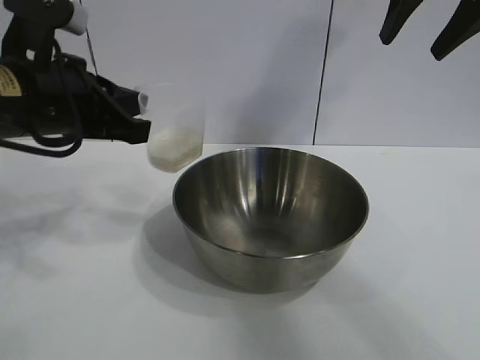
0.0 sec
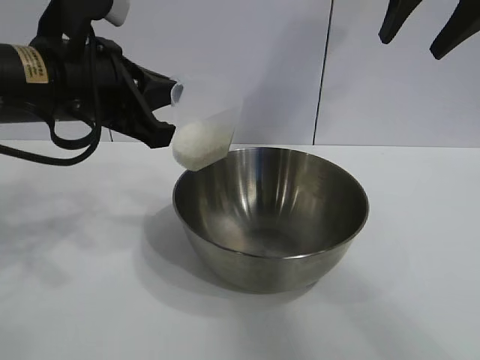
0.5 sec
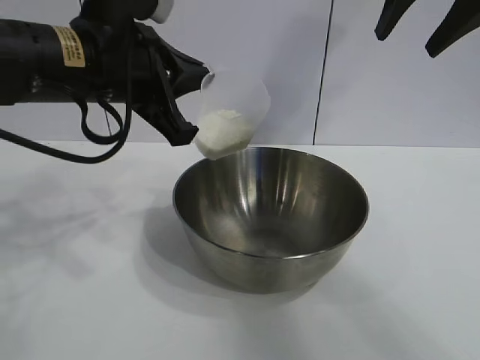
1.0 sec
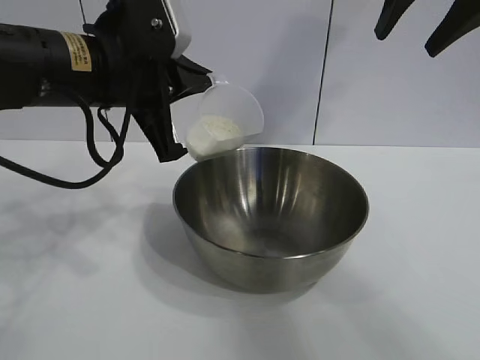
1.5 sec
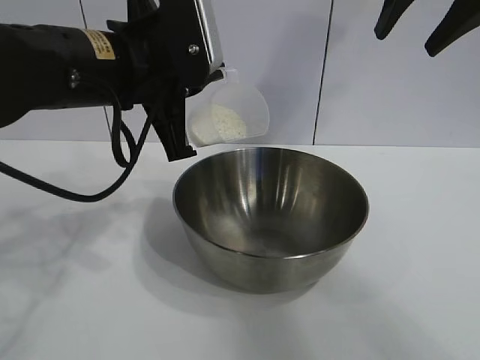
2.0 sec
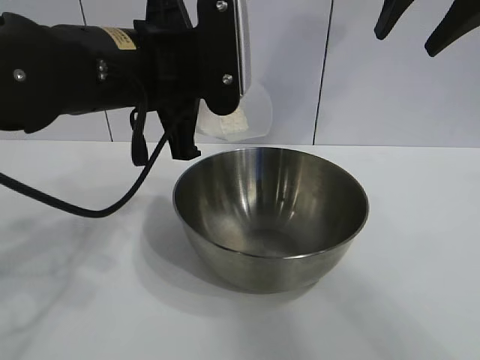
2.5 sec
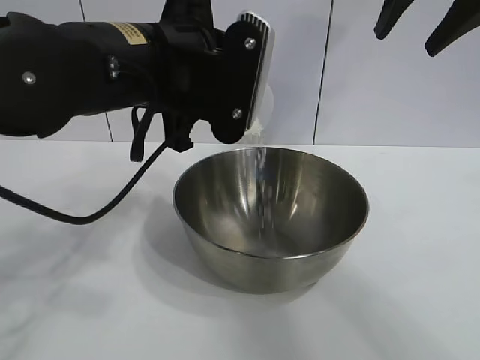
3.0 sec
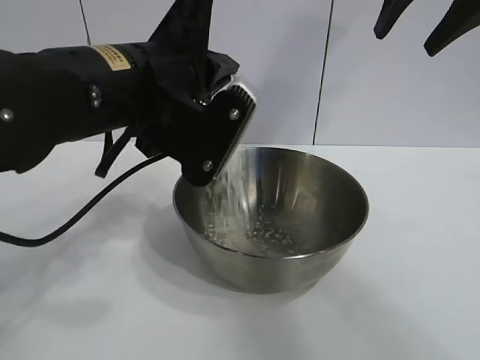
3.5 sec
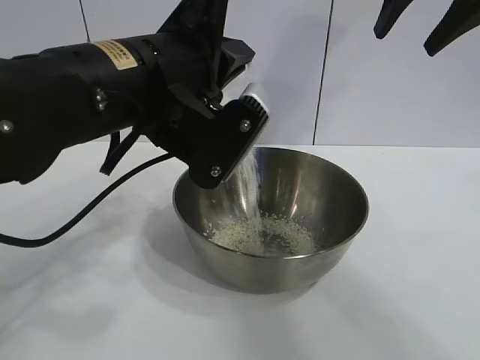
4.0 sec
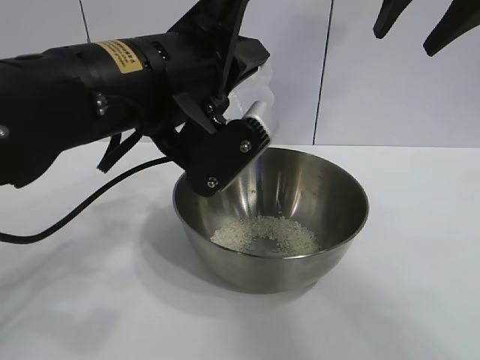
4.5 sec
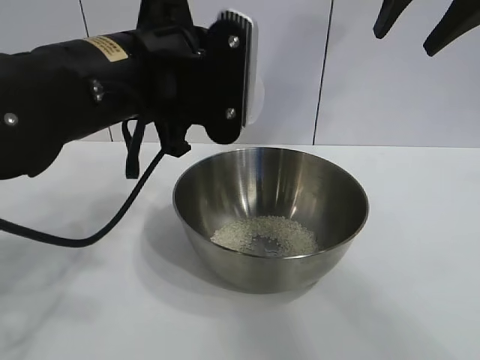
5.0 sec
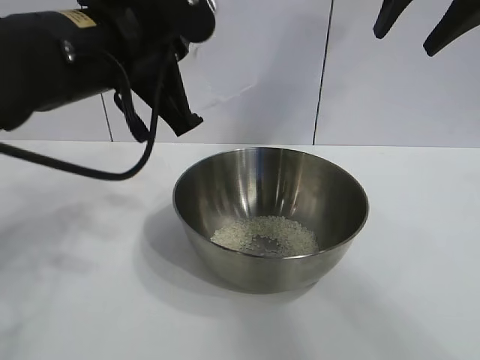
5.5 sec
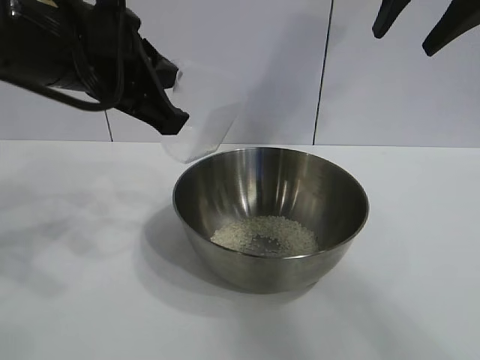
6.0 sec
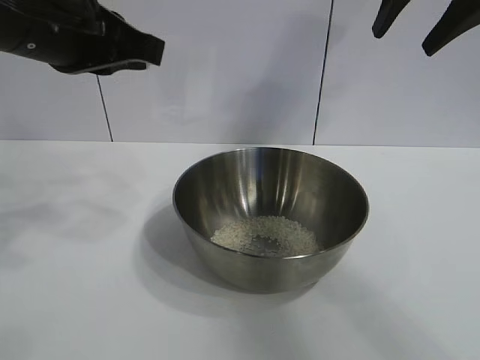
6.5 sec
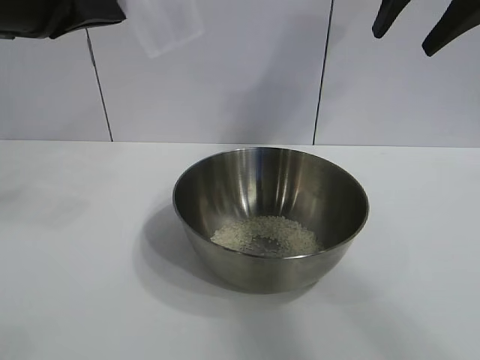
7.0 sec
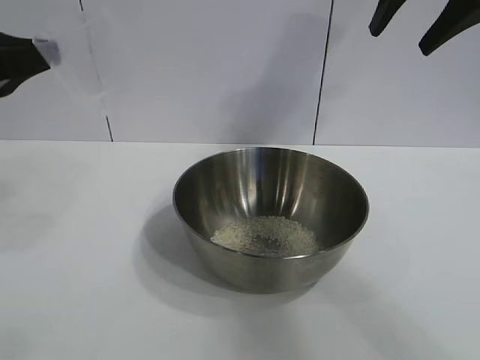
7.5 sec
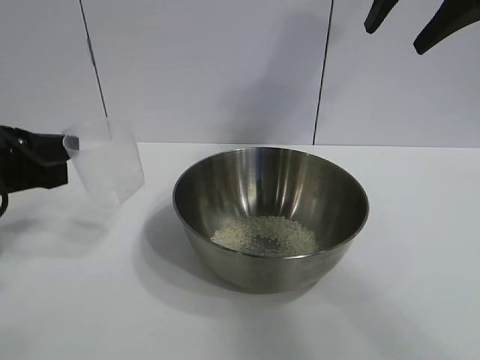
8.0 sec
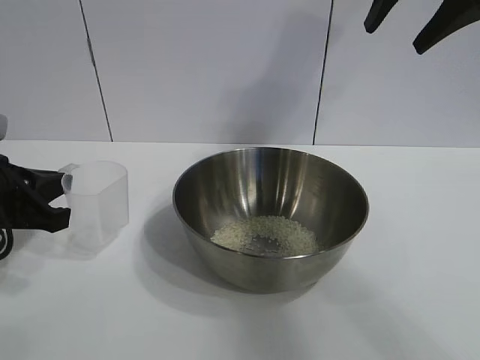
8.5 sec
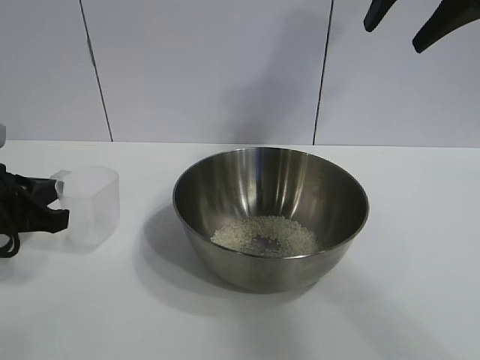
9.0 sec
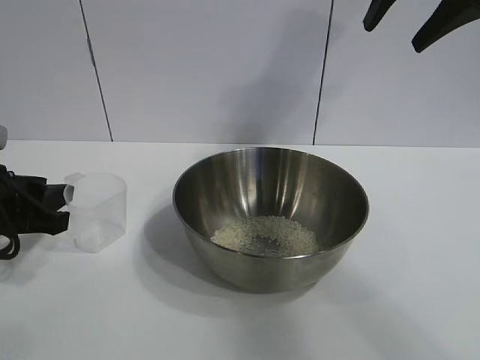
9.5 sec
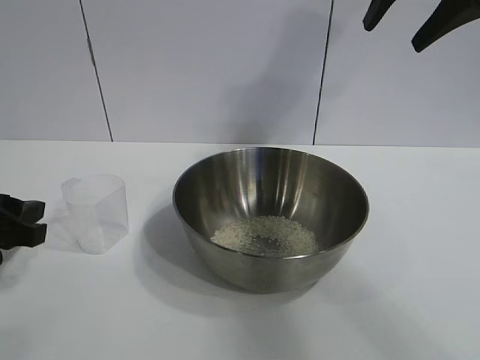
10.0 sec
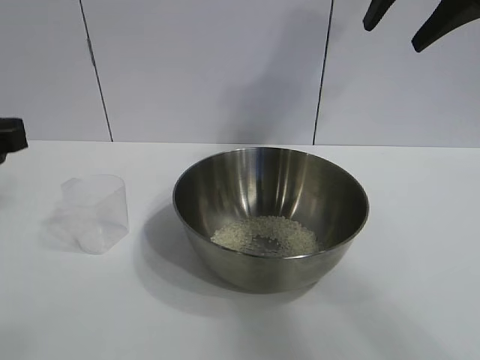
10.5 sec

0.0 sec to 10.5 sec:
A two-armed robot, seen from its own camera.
Task of the whole recording: the right gripper grasp the rice container and place it in the center of the table, the left gripper grasp the rice scoop and pour the rice into the rice container.
Step, 0.0 sec to 4.5 sec: Pour the rice from the cup into the bowl with the left gripper.
Step, 5.0 sec to 9.5 sec: Place the cup on the table with the left gripper.

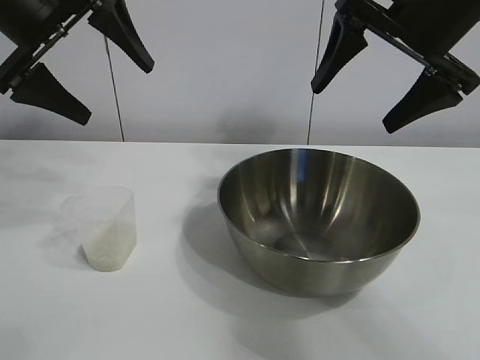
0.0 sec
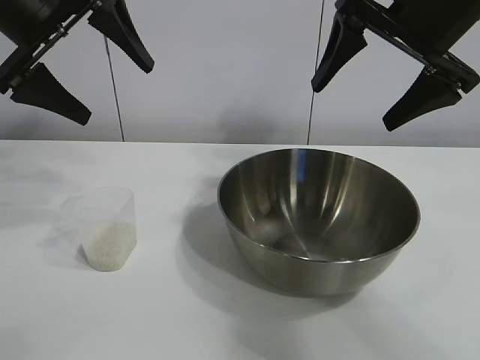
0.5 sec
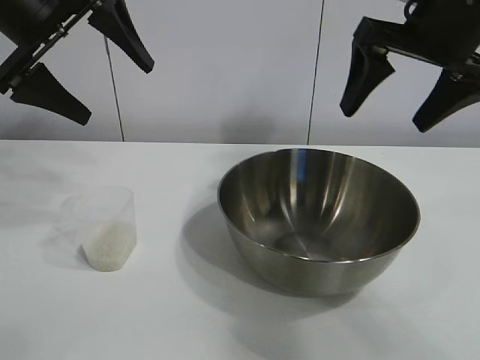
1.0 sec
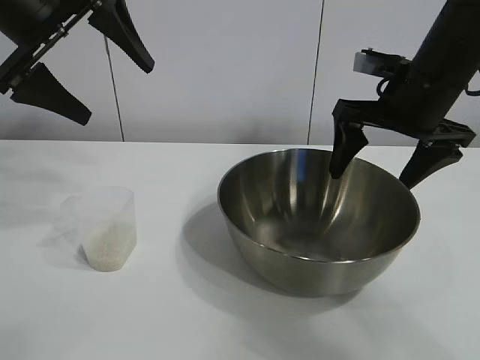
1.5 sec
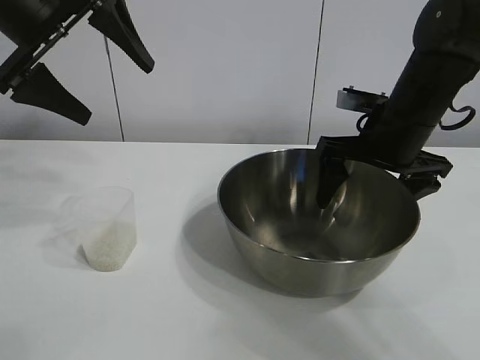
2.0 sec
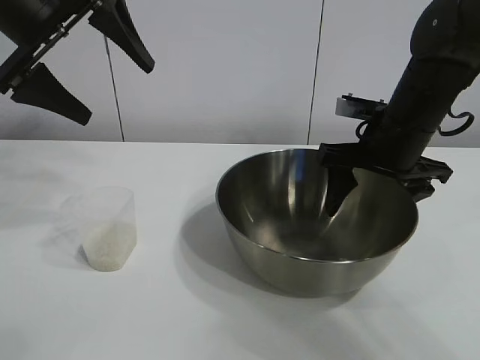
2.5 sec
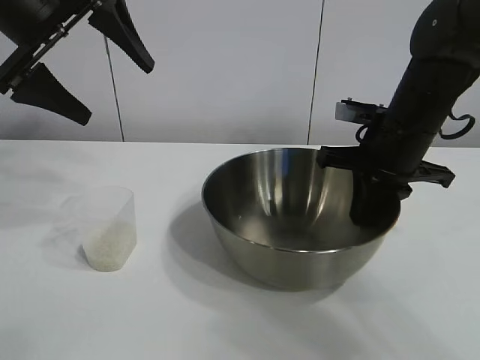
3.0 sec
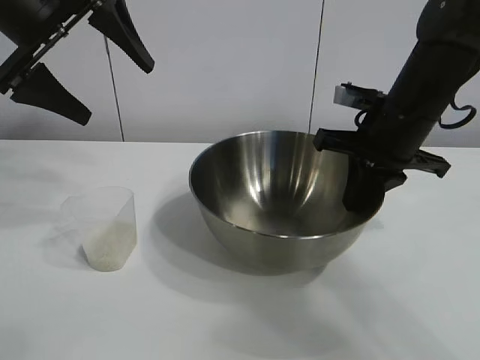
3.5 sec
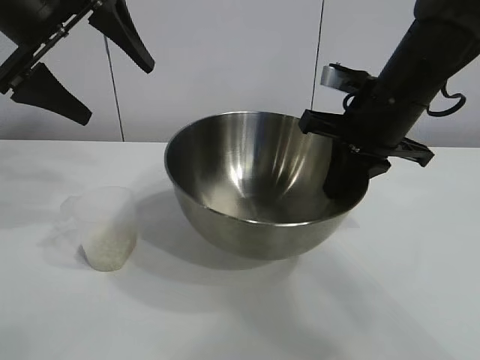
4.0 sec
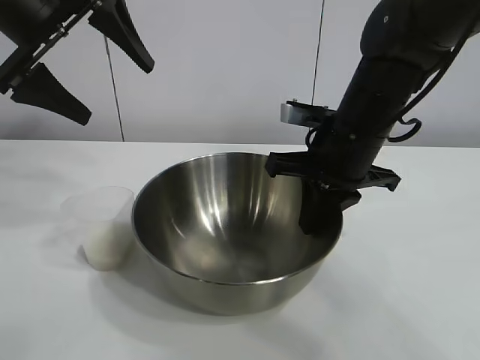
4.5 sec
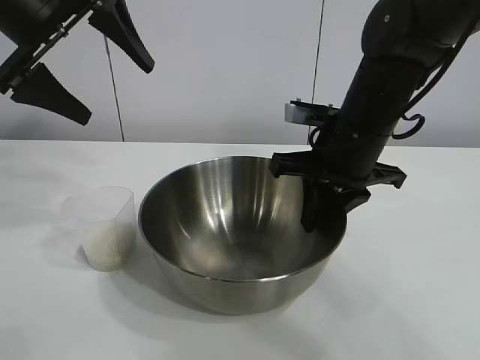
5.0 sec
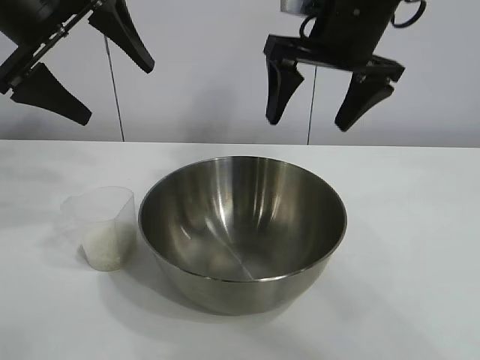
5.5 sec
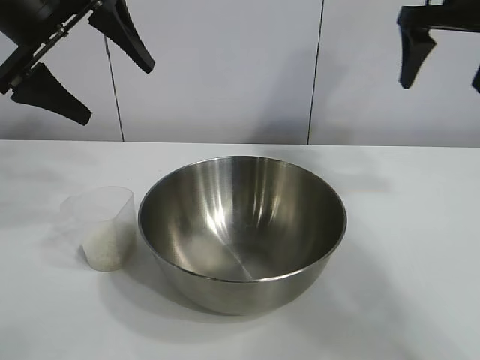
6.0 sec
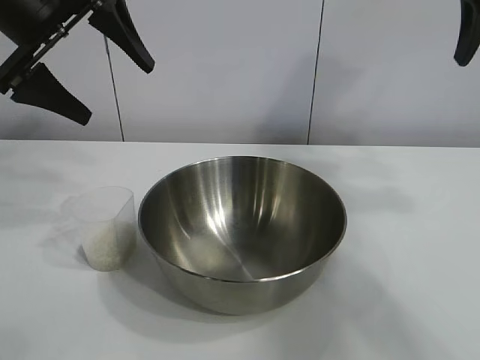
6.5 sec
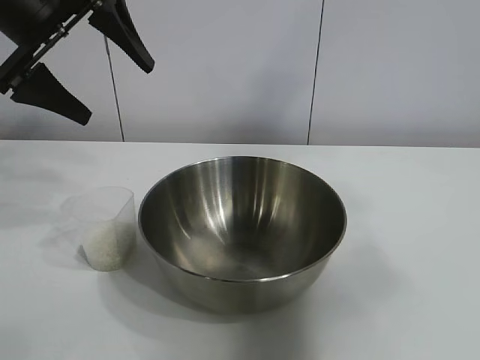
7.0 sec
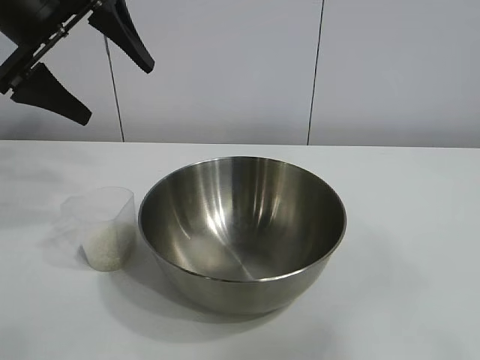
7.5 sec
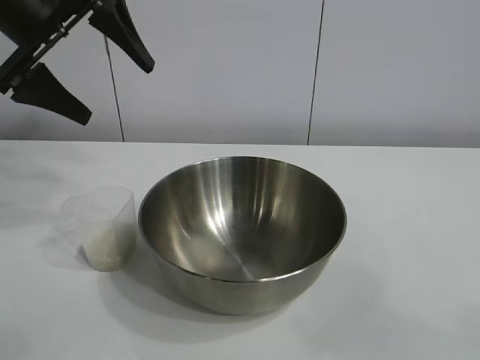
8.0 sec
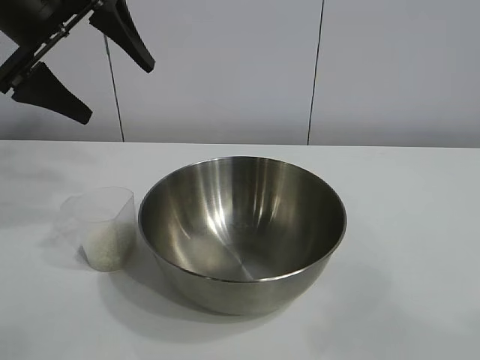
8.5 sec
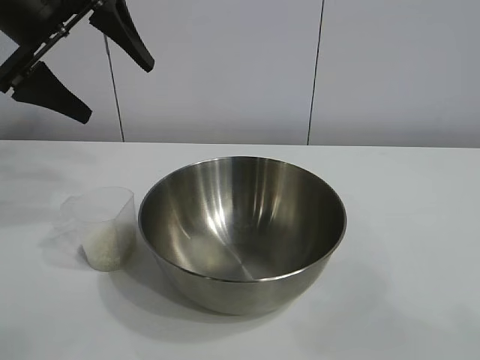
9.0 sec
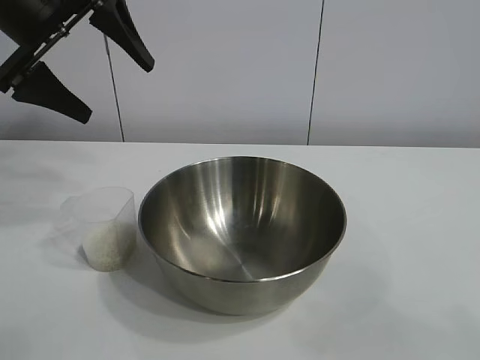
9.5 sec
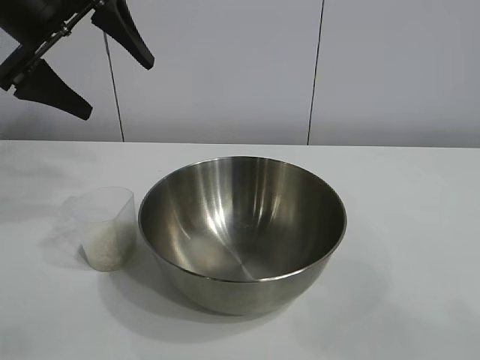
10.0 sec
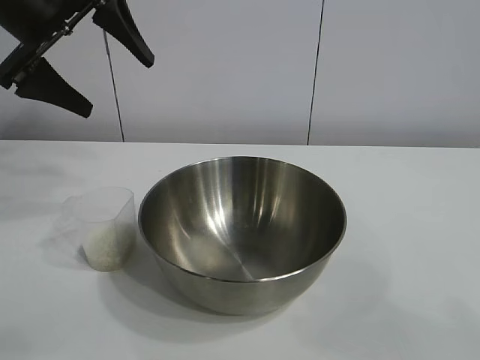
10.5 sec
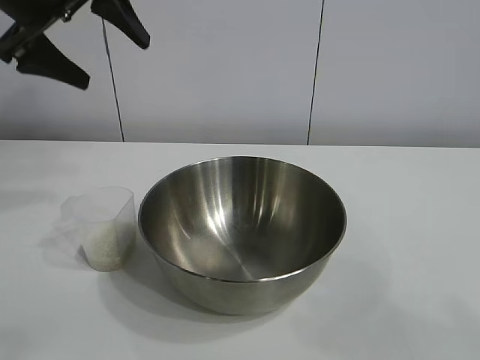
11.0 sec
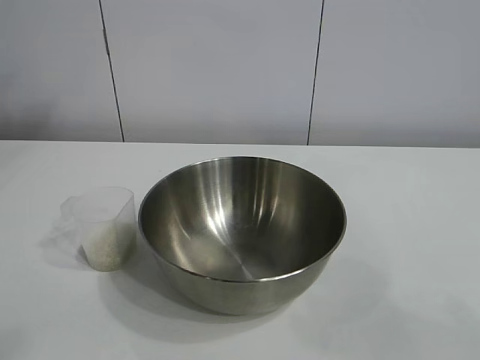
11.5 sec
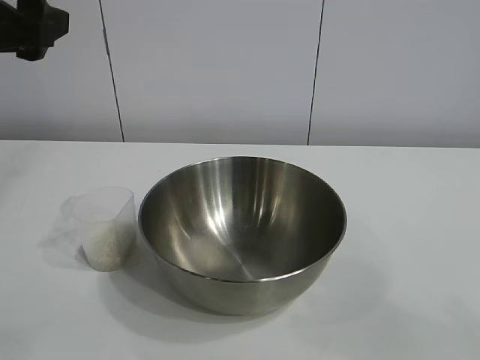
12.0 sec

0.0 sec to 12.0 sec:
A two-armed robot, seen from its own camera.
Task of the whole recording: the right gripper grasp the rice container and place it in the center of the table, the left gripper grasp the rice scoop and pour the rice into the rice container.
Step, 1.0 sec to 5.0 sec: Move the bowl in the center of view with right gripper.

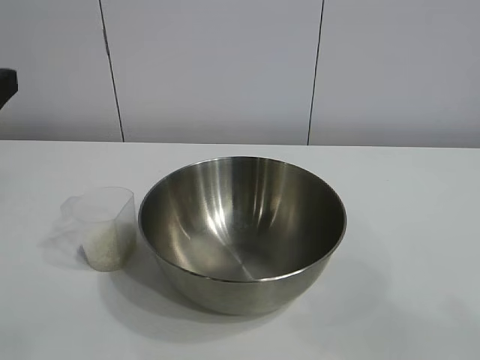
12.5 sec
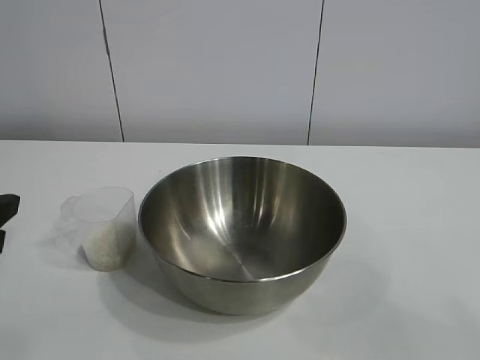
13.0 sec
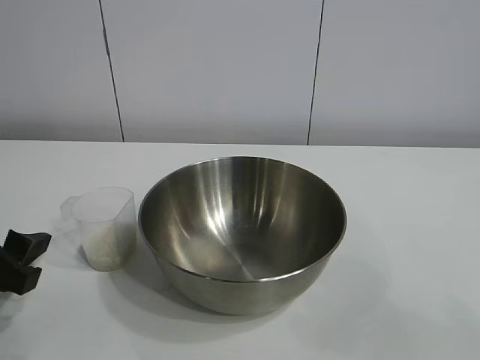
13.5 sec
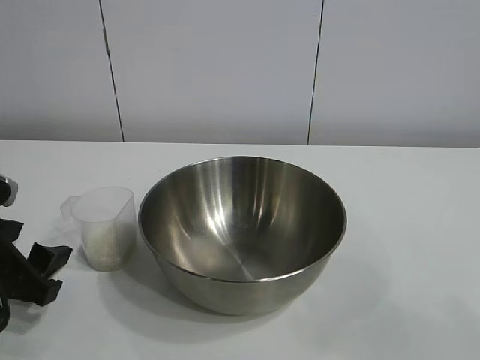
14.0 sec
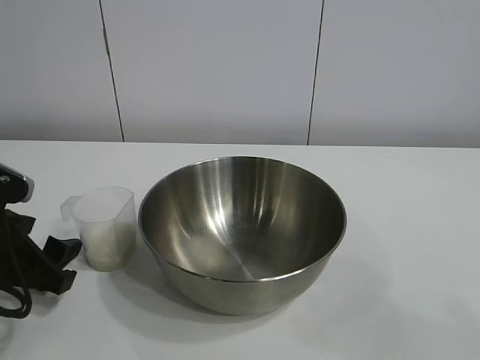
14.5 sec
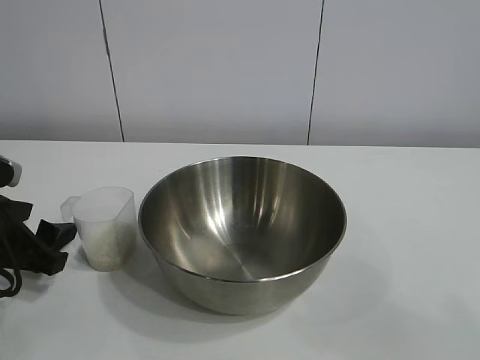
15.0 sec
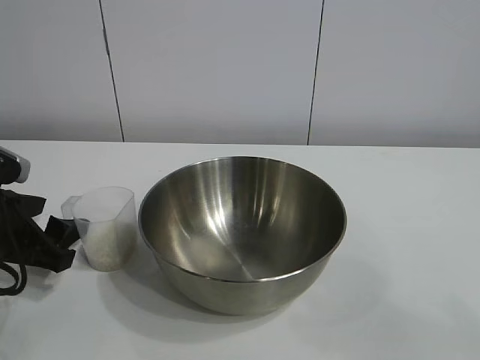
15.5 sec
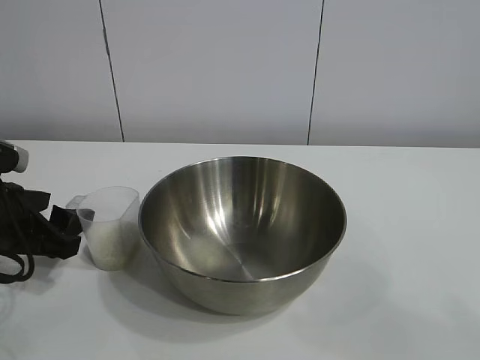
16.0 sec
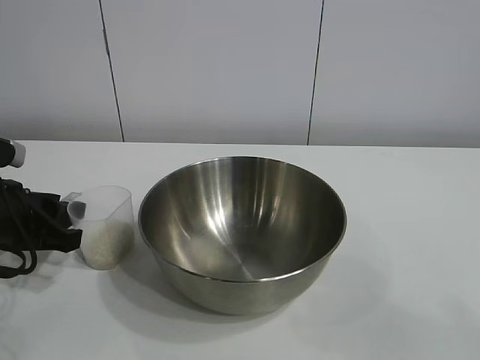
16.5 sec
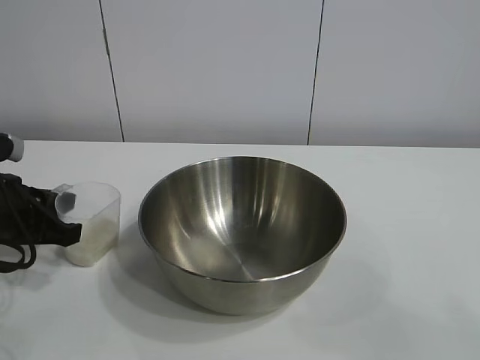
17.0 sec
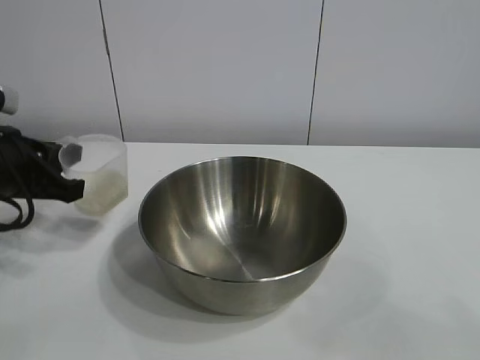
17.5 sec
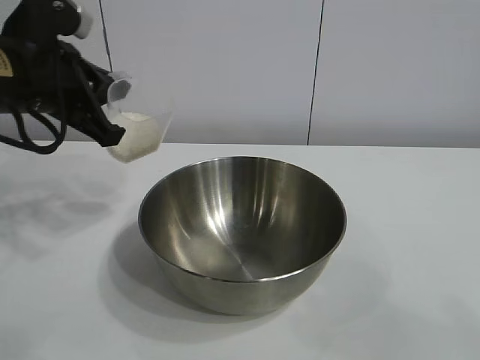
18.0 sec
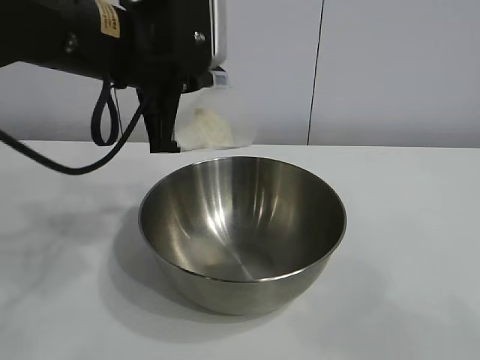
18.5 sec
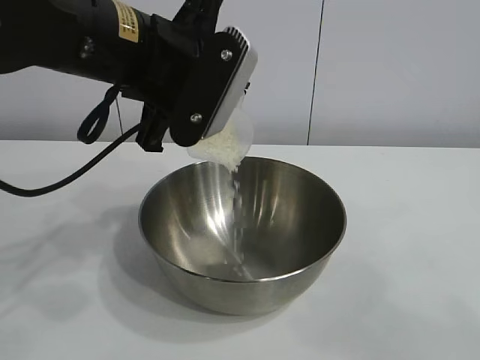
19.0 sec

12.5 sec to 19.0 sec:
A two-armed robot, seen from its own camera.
Task of the whole recording: the right gripper grasp the rice container and place it in the center of the table, the left gripper grasp the rice scoop and pour the rice into the rice container.
Step, 12.5 sec to 17.0 sec: Grasp the cup with rice in it with left gripper.
